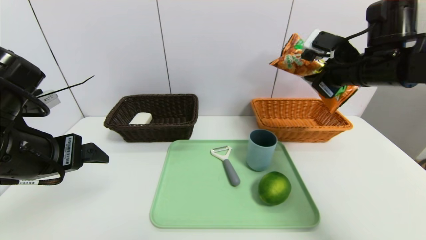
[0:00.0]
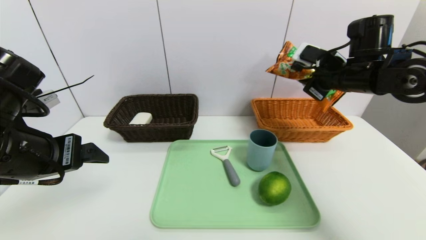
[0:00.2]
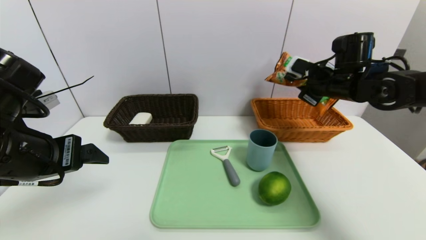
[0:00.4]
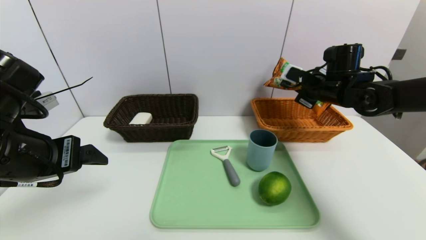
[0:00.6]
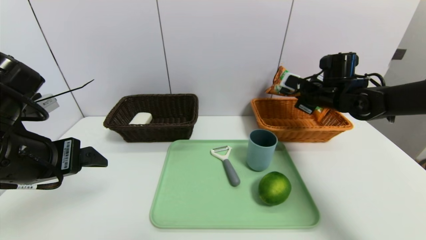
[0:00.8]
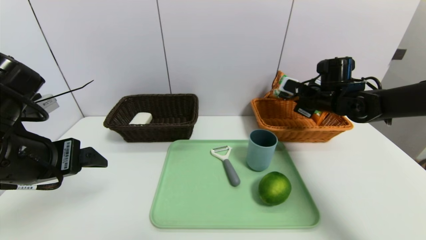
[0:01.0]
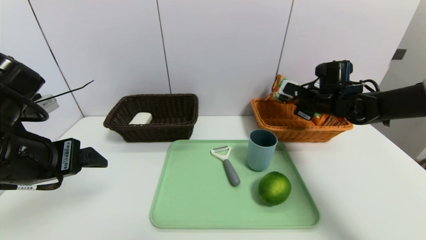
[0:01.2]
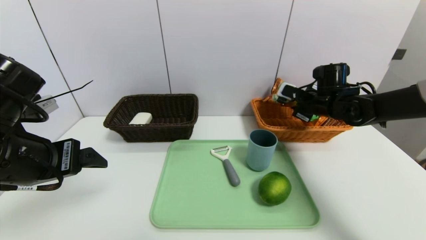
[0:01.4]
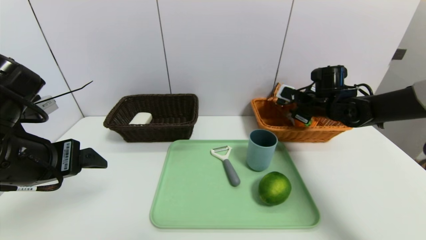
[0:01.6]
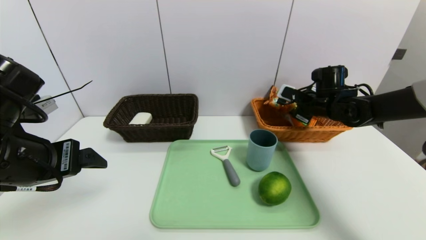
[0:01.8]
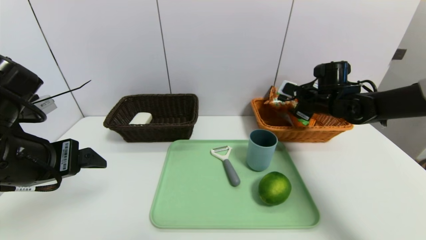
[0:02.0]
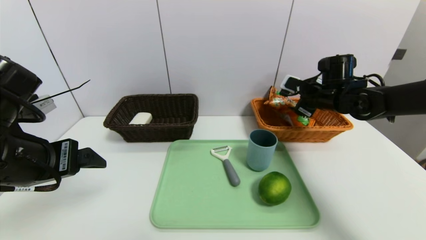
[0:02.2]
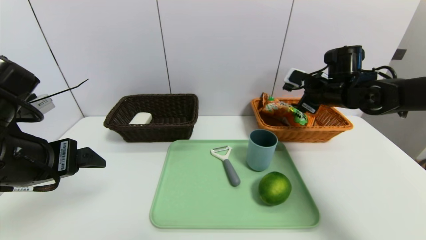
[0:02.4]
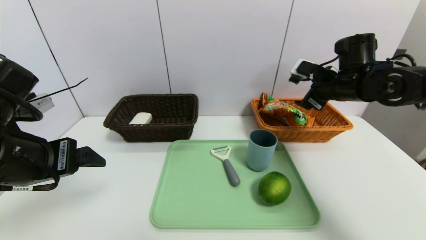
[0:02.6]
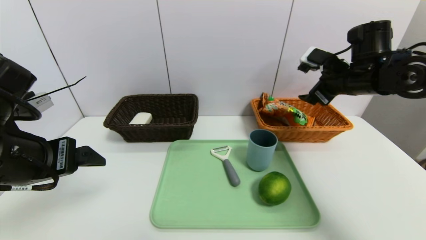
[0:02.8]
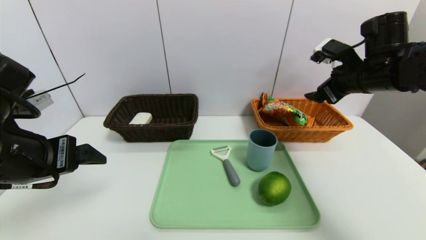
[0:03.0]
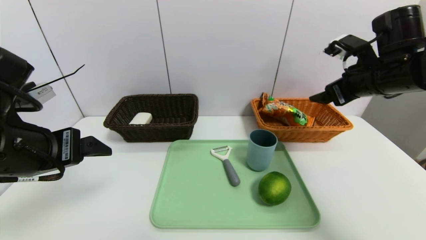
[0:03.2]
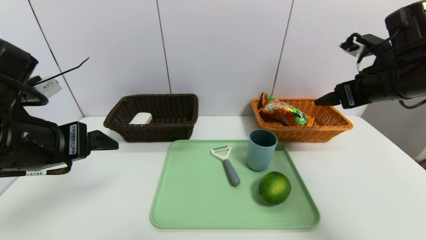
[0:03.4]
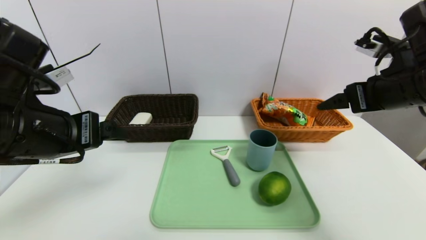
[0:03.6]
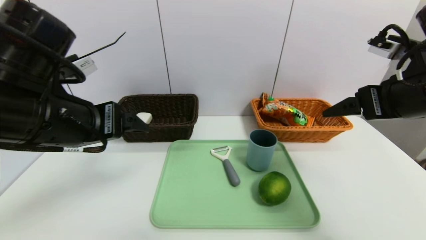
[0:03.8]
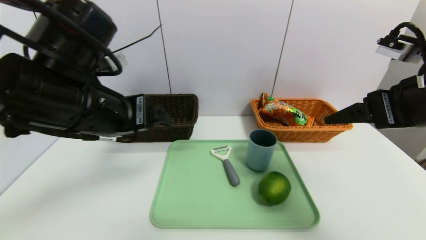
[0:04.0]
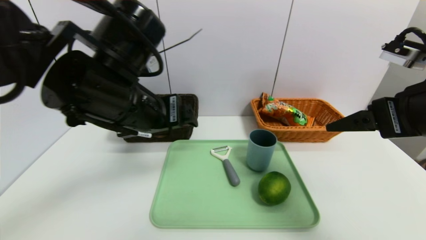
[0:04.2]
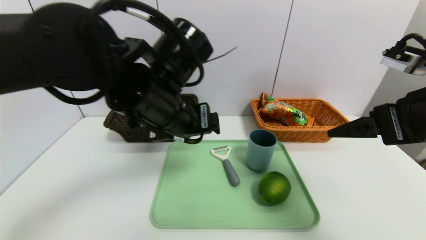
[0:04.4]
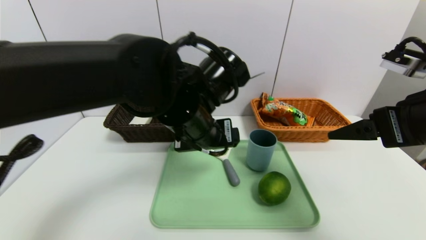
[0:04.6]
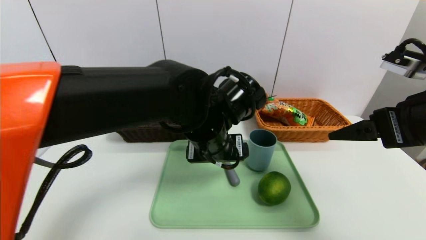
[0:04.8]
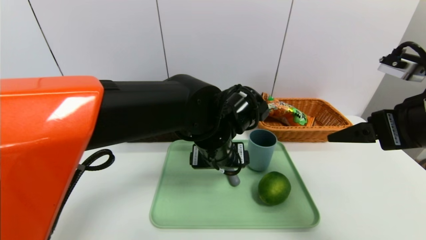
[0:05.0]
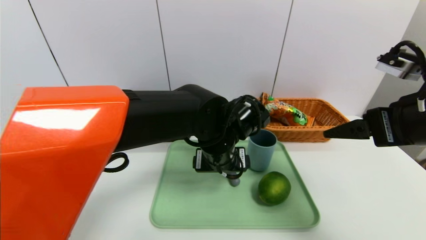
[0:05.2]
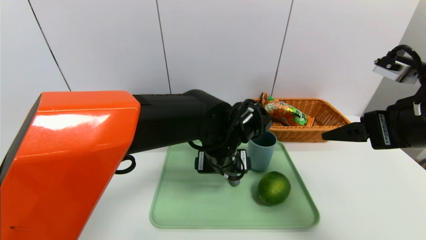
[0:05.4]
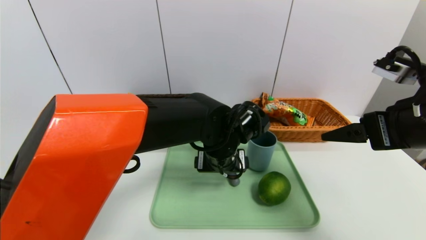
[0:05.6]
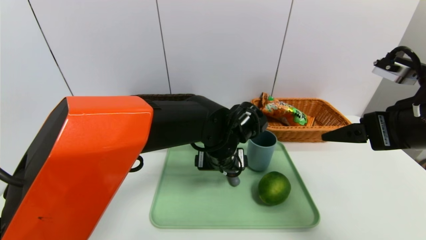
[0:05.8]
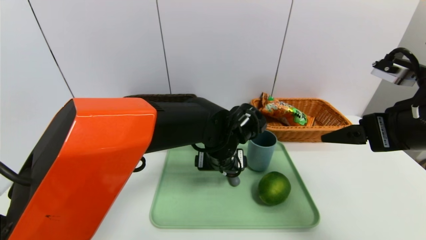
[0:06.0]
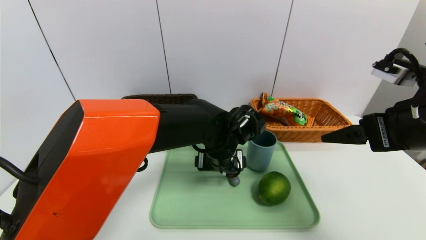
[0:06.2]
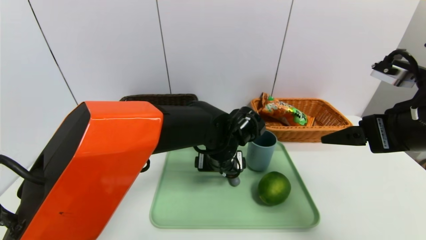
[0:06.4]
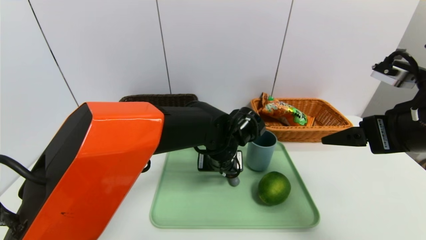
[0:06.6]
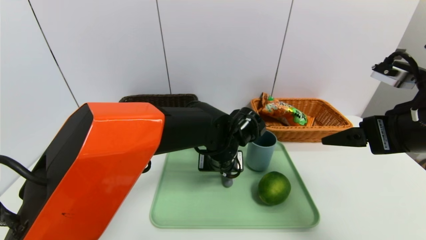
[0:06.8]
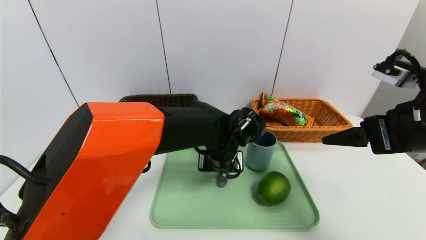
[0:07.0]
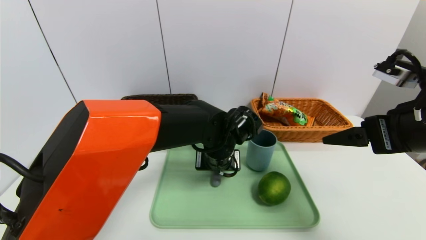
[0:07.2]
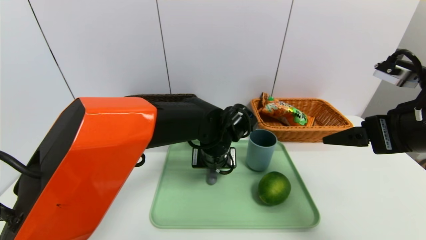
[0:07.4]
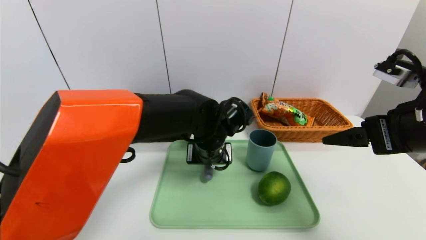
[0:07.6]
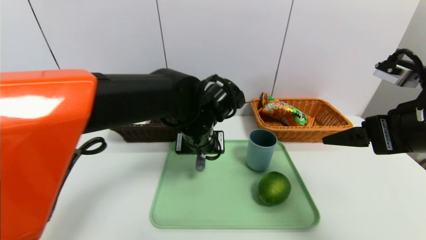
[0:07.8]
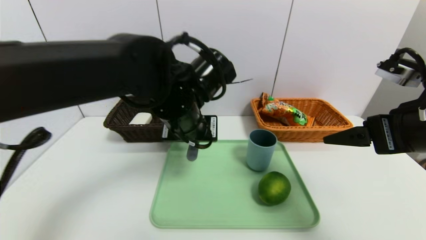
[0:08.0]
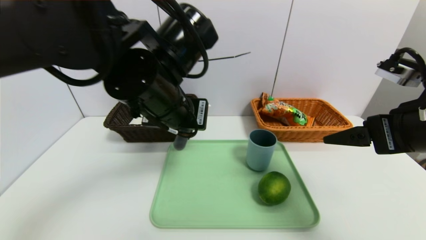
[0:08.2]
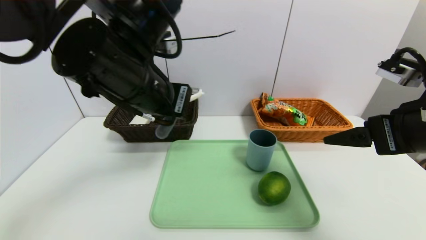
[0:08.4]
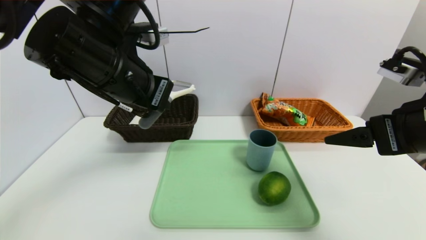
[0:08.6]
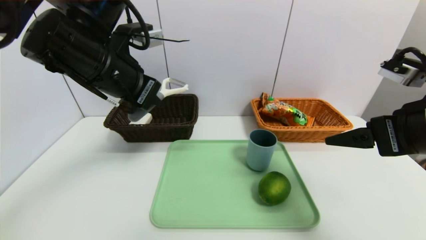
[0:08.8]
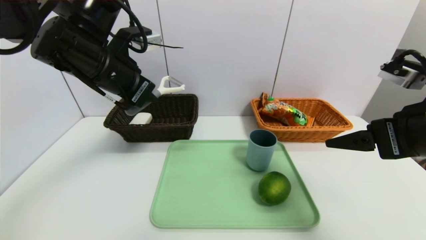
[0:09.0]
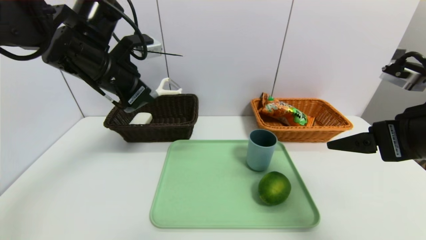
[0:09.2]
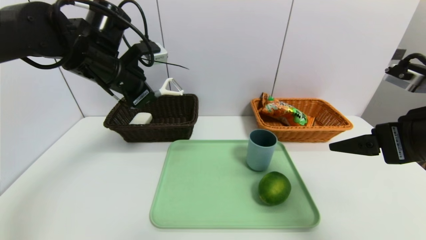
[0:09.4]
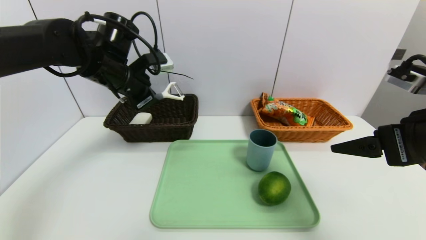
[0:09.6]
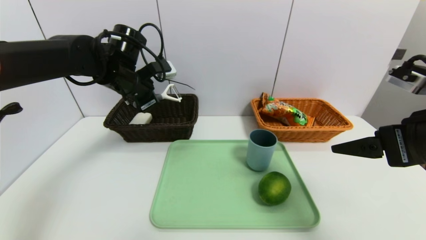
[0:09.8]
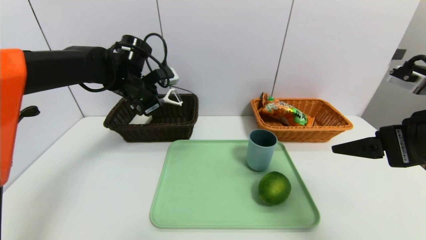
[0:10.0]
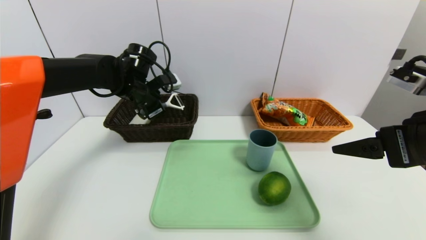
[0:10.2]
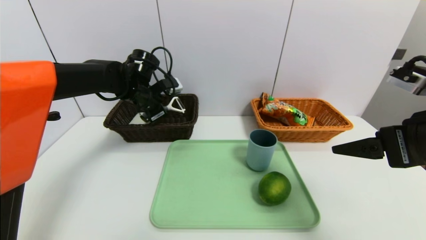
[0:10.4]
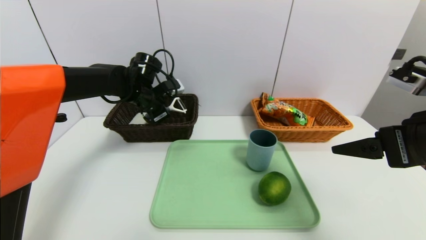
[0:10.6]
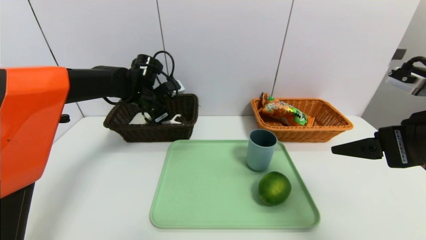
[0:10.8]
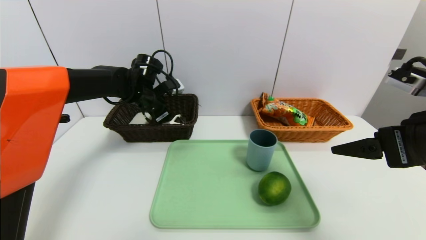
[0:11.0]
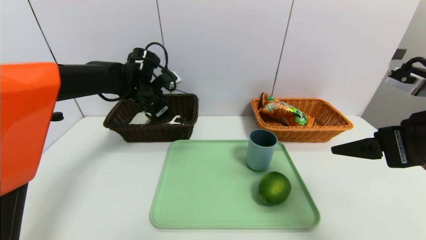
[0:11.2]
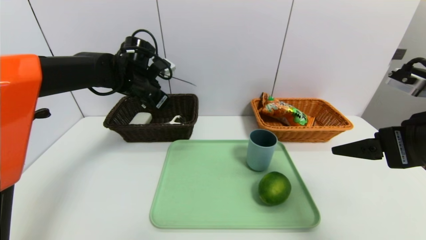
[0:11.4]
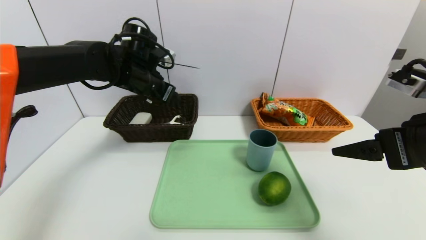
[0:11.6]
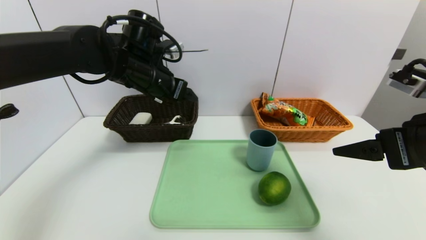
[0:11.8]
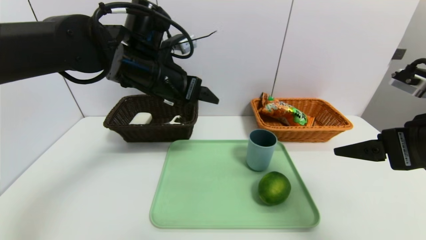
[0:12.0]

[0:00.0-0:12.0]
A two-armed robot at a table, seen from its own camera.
Task of the whole recording: place the food in the right basket with the right gripper, and place the non food items in the left basket with the left gripper.
Step, 0:02.0 to 0:11.2: Grasp the peeler and put it in the left basket.
0:00.0 to 0:01.6: The right gripper moves downward and forward, roughly 15 cm, and opens up.
0:01.6 to 0:03.0: The right gripper heads upward and backward, covering some 15 cm, and opens.
0:03.0 to 0:04.4: The right gripper shifts approximately 15 cm backward, while the left gripper travels to the right and forward by approximately 20 cm.
0:04.4 to 0:06.0: The left gripper shifts approximately 15 cm downward, to the right and forward.
0:06.0 to 0:07.6: The left gripper closes.
0:07.6 to 0:09.0: The left gripper shifts roughly 25 cm to the left and upward.
0:09.0 to 0:10.4: The left gripper heads forward and downward, covering about 15 cm.
0:10.4 to 0:12.0: The left gripper is displaced backward, upward and to the right by about 15 cm, and opens.

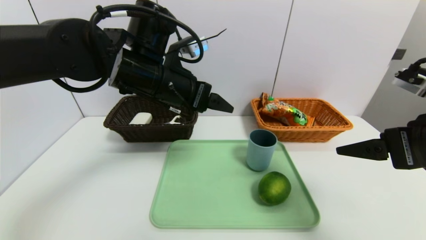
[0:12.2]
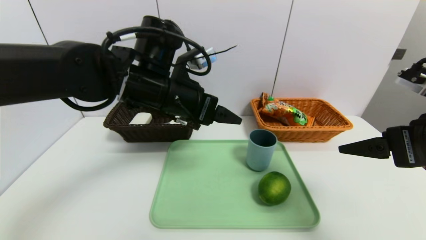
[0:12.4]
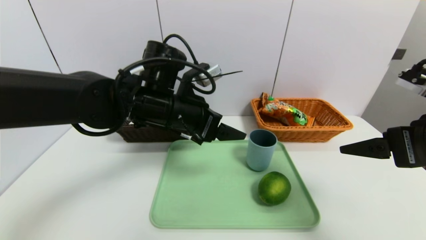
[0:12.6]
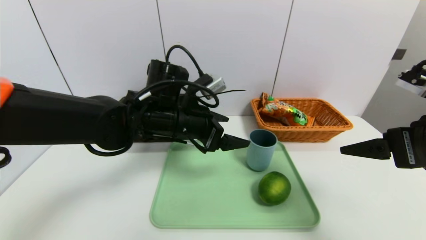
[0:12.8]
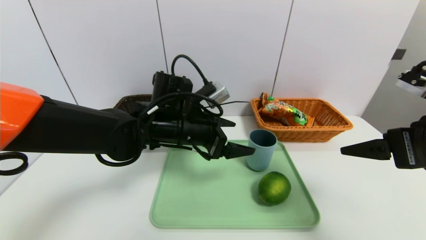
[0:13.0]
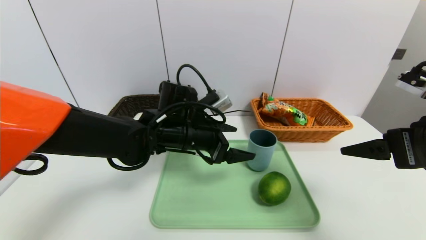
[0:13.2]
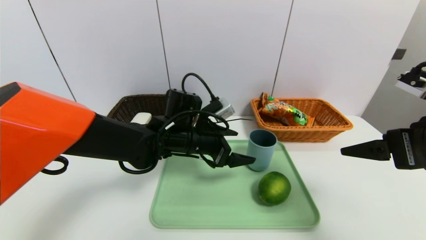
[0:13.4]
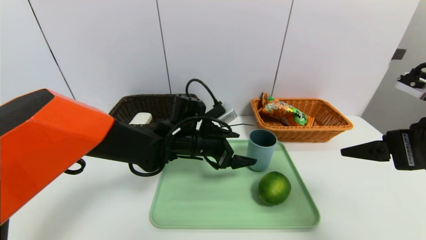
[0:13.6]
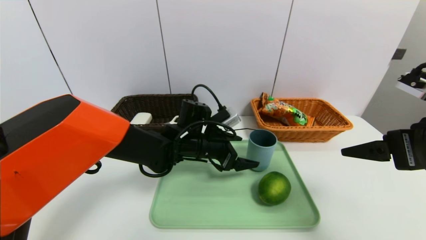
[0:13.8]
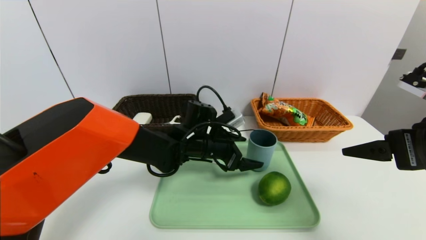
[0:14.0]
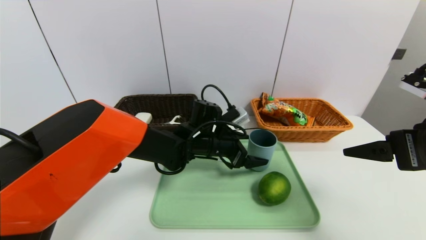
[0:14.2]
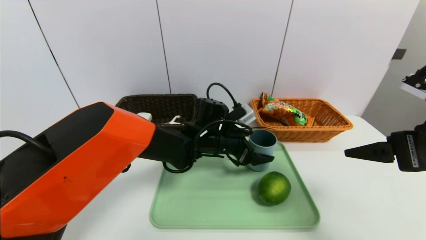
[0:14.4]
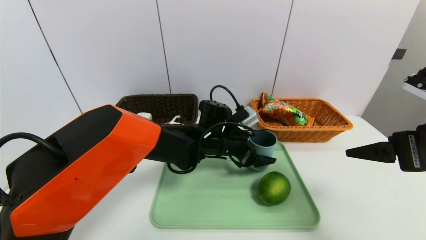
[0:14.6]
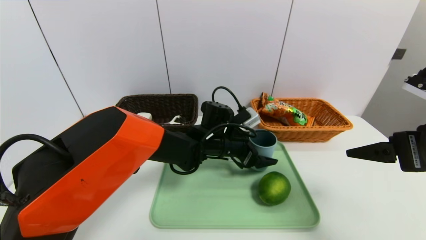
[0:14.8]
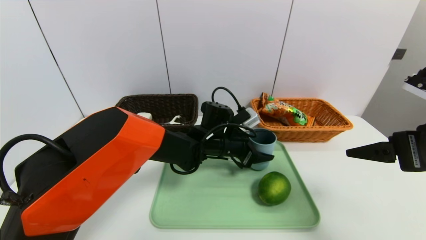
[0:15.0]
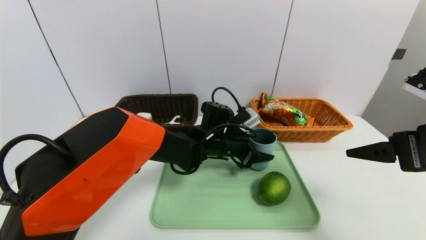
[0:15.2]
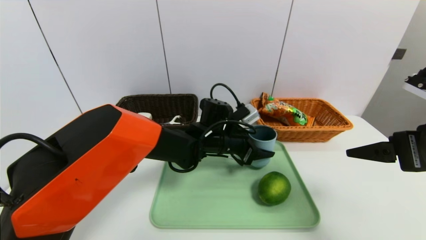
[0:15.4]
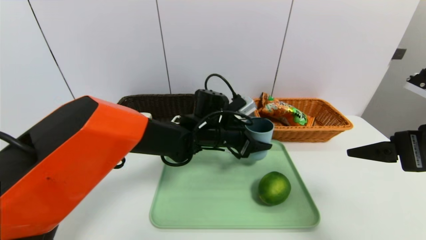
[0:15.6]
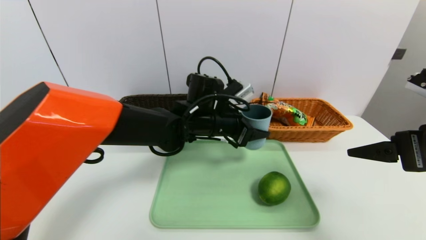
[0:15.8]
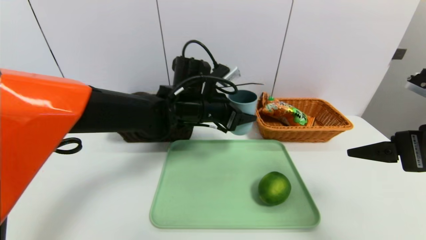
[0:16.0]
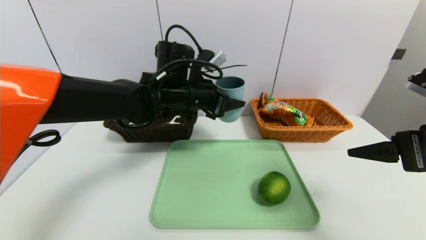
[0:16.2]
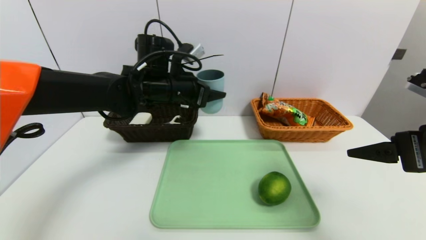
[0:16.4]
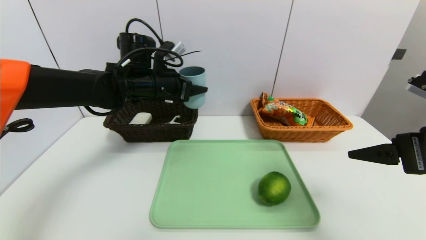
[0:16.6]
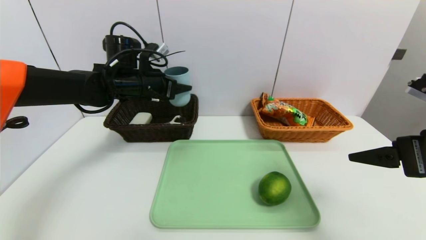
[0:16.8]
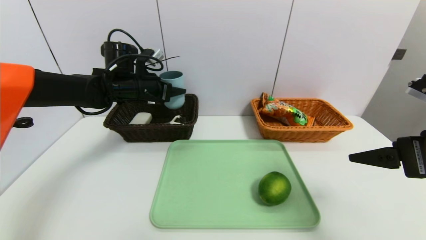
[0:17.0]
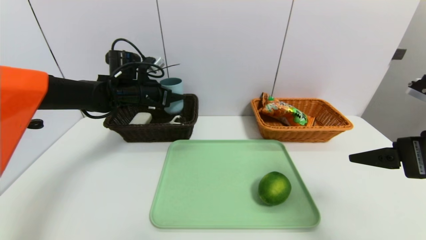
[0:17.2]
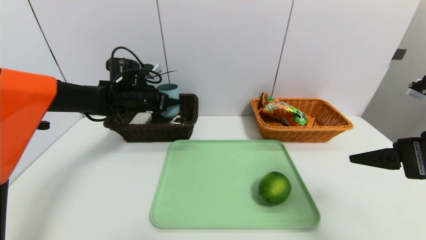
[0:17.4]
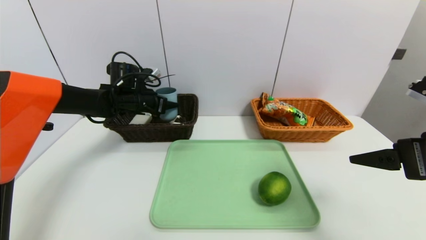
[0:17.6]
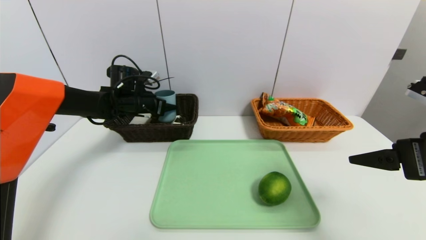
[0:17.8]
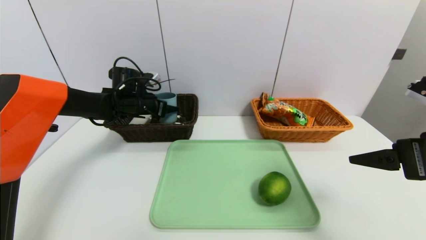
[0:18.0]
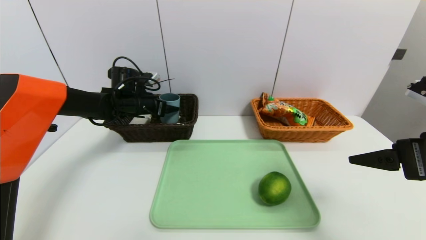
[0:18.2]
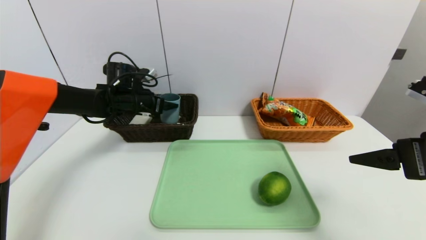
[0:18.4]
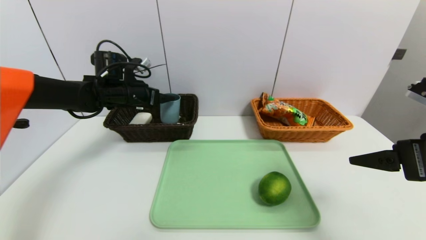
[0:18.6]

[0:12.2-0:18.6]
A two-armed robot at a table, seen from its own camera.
Task of the whole recording: place the food in the right basket with the right gripper, and place the non food items in the left basket with the left gripper.
0:12.2 to 0:13.8: The left gripper goes about 15 cm downward.
0:13.8 to 0:15.4: The left gripper closes up.
0:15.4 to 0:17.0: The left gripper is displaced to the left and upward by roughly 25 cm.
